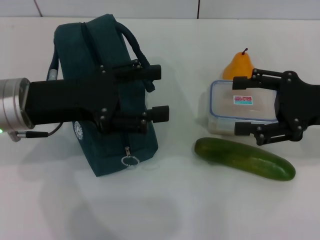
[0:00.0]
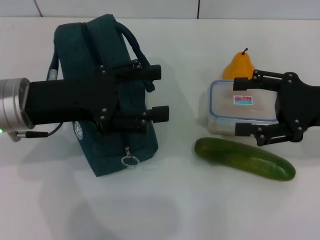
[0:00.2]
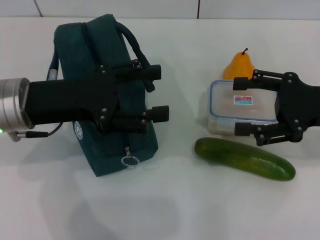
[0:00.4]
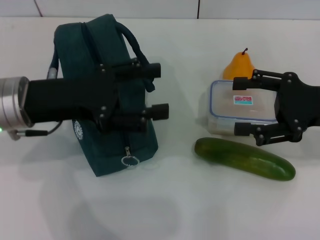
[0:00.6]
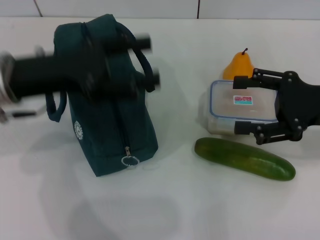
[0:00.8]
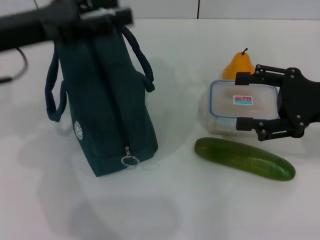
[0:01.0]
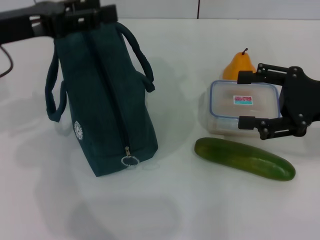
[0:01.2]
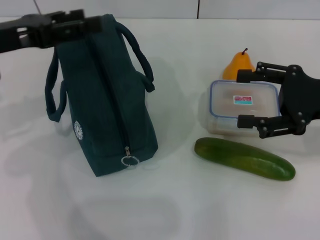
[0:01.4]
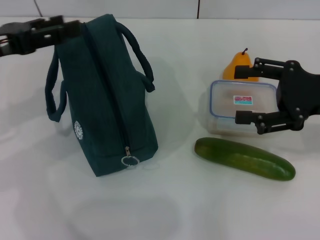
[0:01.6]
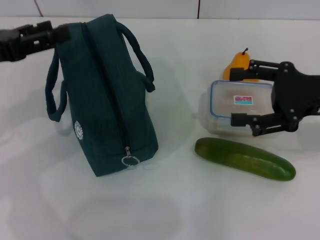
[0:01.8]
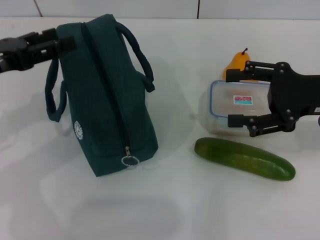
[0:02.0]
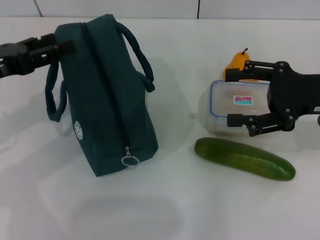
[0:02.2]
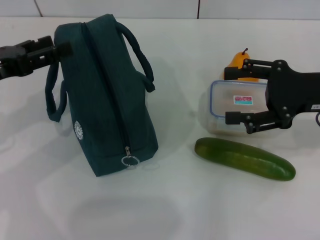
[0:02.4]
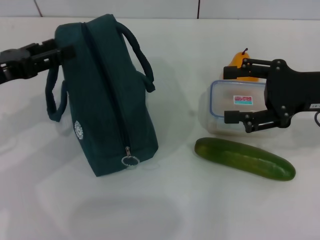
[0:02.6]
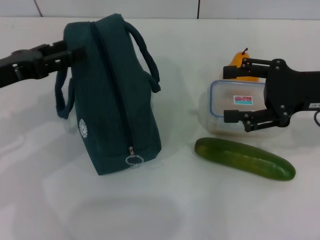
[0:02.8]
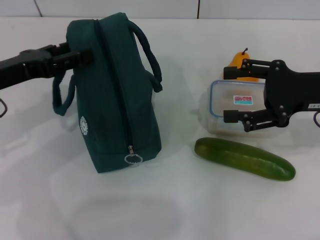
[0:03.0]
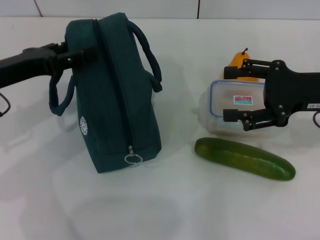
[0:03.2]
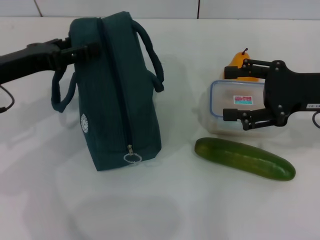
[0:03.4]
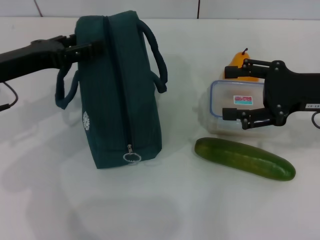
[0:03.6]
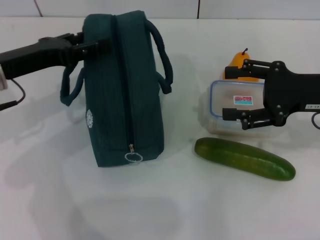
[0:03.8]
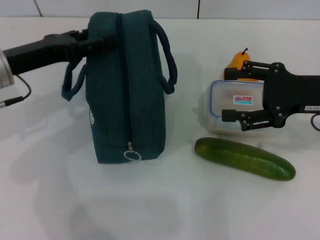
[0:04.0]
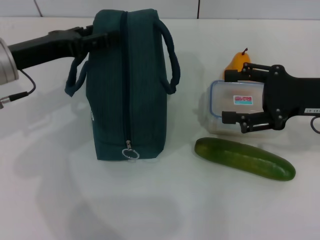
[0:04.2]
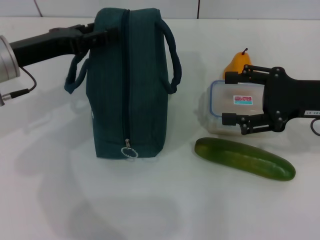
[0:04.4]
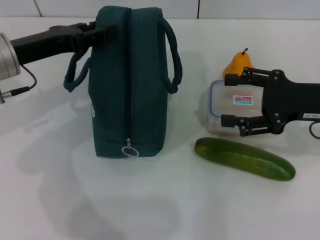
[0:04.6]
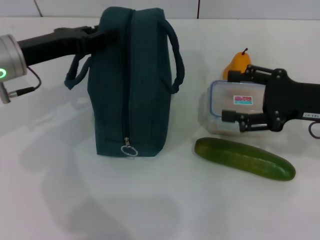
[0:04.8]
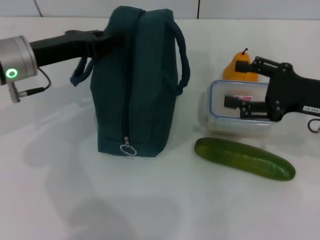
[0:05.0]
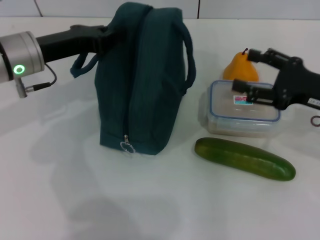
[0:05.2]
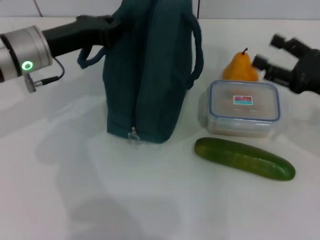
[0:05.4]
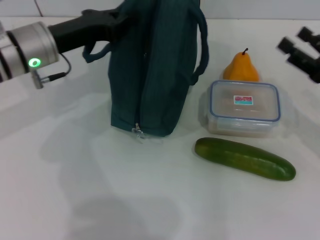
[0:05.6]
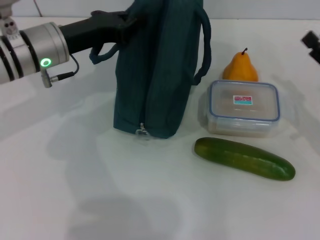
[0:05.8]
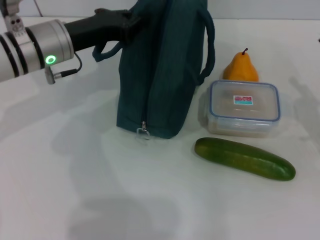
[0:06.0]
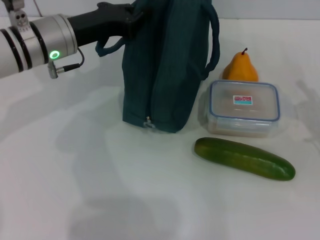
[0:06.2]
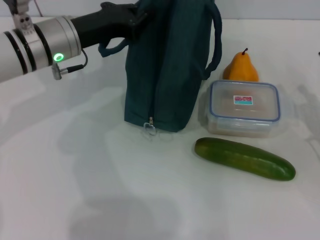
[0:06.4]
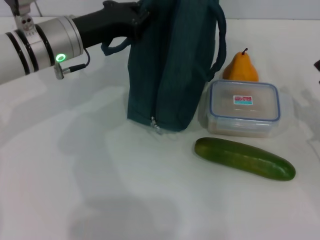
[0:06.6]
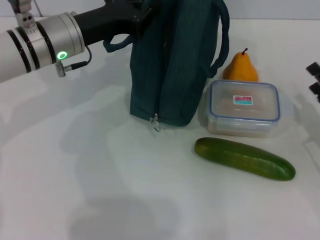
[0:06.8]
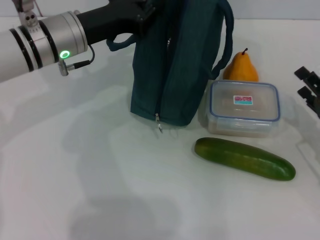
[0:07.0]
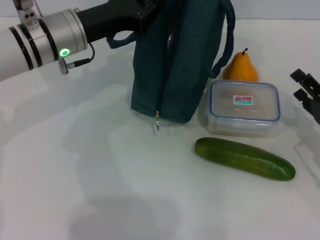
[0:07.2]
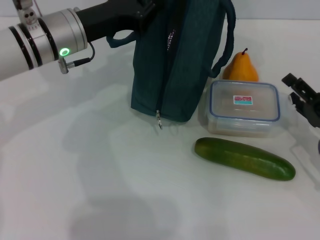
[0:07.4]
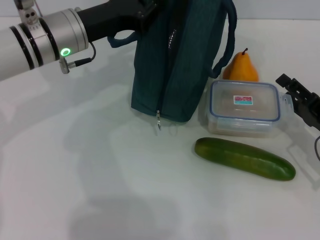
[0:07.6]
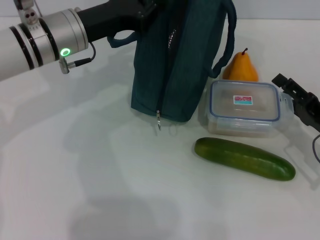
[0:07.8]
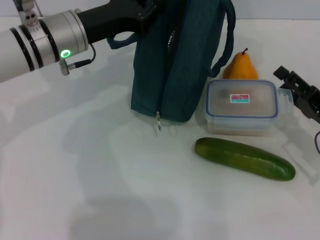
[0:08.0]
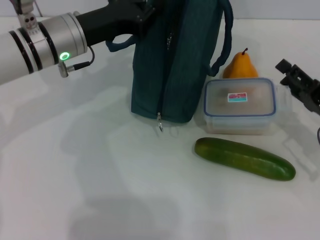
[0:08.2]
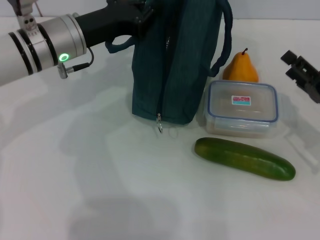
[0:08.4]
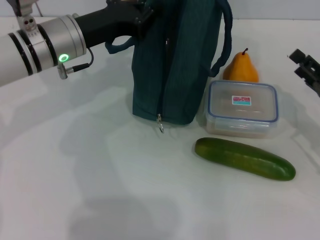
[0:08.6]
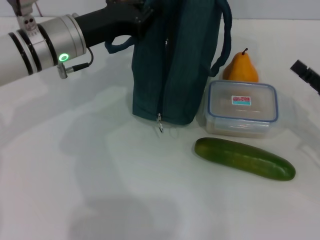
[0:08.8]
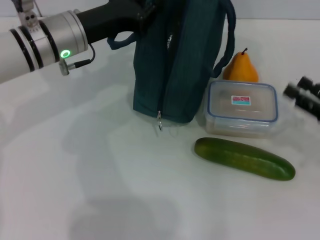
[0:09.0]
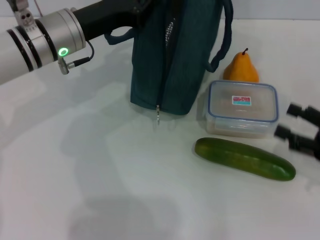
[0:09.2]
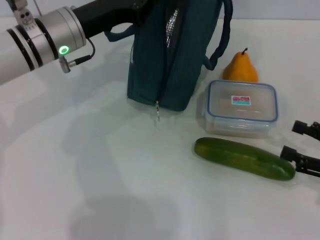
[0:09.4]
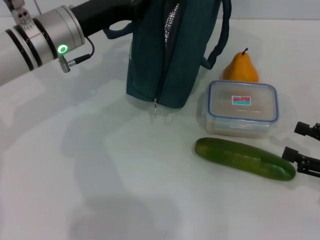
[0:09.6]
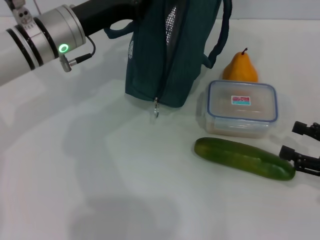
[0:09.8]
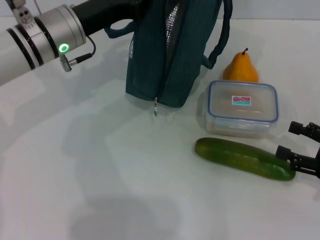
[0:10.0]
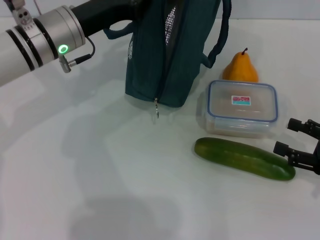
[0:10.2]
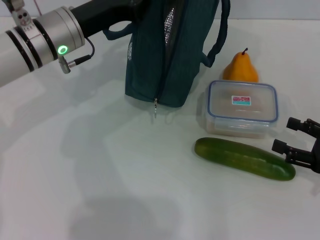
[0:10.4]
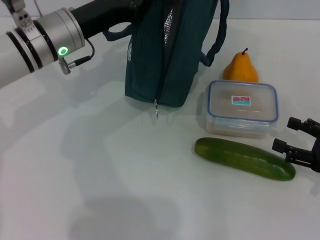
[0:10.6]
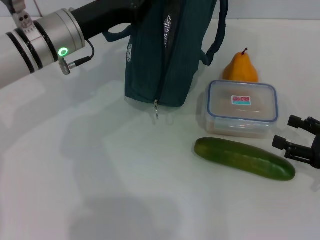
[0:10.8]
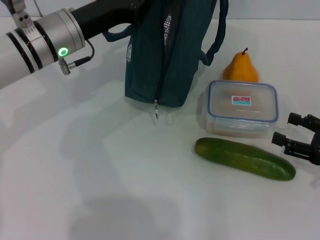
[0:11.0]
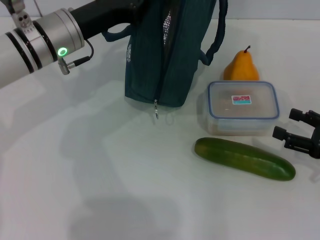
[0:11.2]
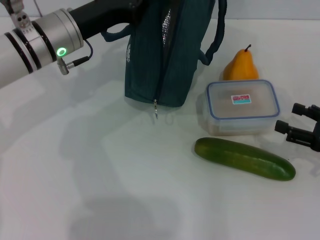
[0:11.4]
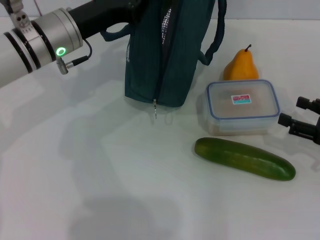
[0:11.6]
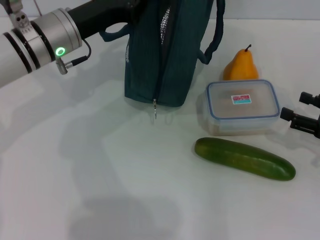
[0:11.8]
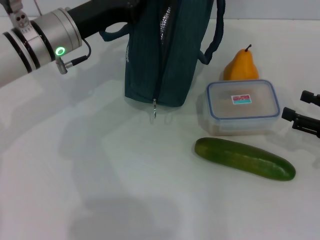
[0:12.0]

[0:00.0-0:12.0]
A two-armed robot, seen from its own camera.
Step, 0:00.0 to 0:07.0: Hold the lunch bag with your left hand.
0:00.0 to 0:01.6: The left gripper moves to the left, roughly 10 cm.
0:01.6 to 0:03.0: The grippers make only small movements.
0:03.0 to 0:04.4: The left gripper moves about 5 cm.
0:04.4 to 0:06.0: The right gripper shifts approximately 10 cm downward and to the right. The left gripper travels to the right by about 5 cm, and closes its fingers.
0:07.6 to 0:09.0: The right gripper moves about 5 cm.
0:10.4 to 0:12.0: The grippers stay close to where they were, moving slightly.

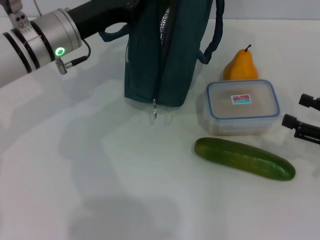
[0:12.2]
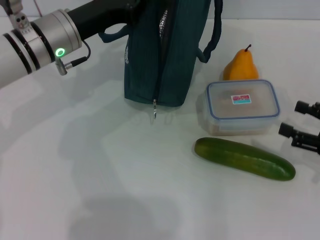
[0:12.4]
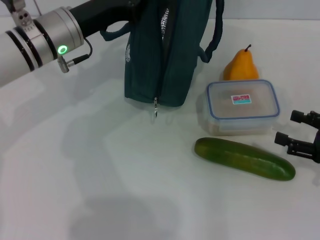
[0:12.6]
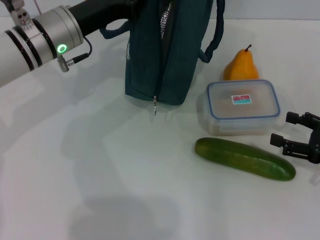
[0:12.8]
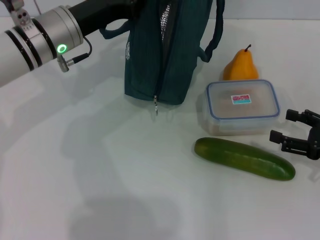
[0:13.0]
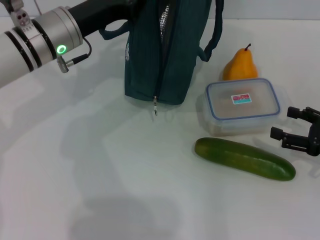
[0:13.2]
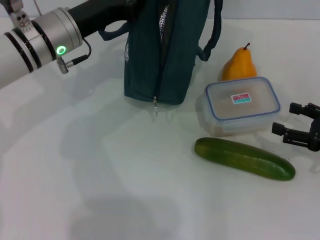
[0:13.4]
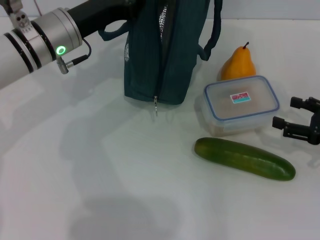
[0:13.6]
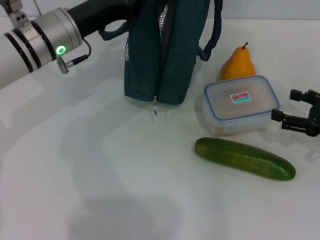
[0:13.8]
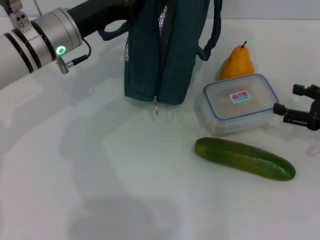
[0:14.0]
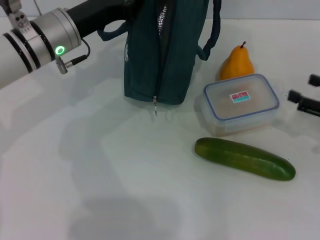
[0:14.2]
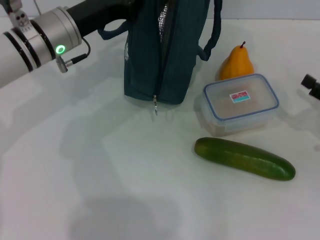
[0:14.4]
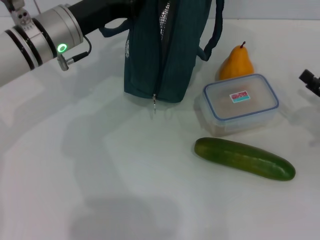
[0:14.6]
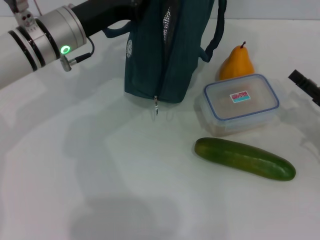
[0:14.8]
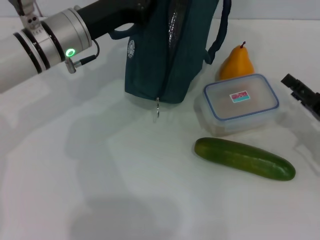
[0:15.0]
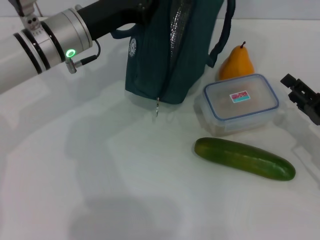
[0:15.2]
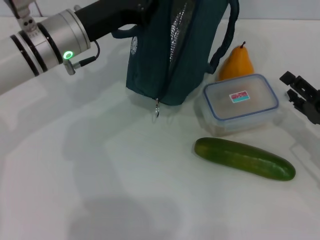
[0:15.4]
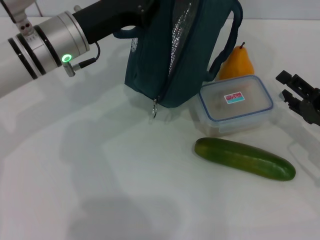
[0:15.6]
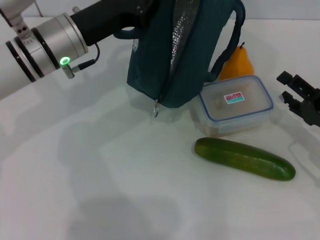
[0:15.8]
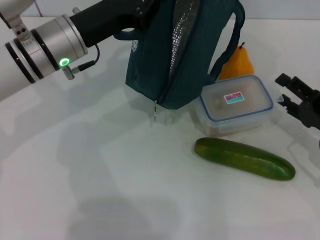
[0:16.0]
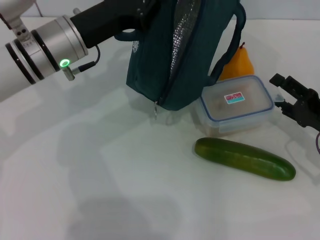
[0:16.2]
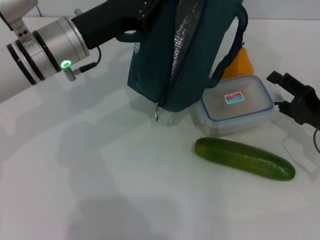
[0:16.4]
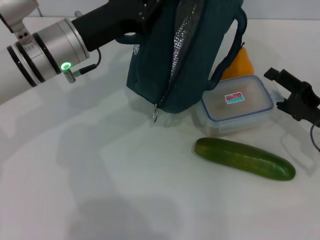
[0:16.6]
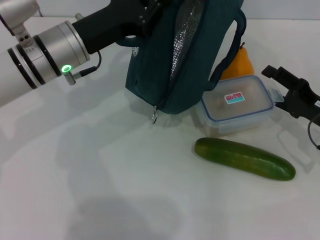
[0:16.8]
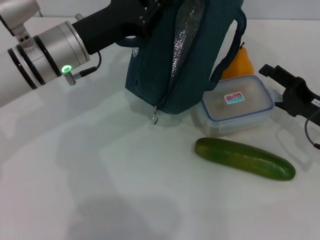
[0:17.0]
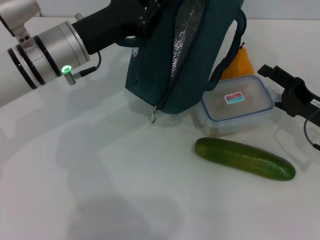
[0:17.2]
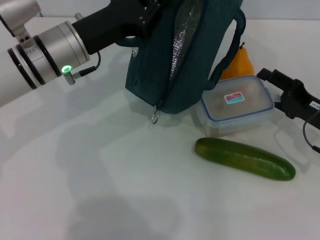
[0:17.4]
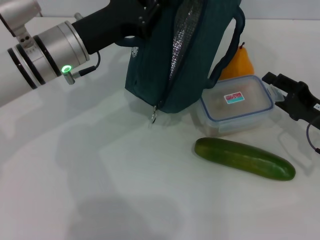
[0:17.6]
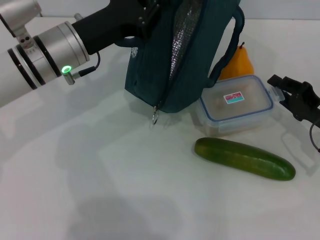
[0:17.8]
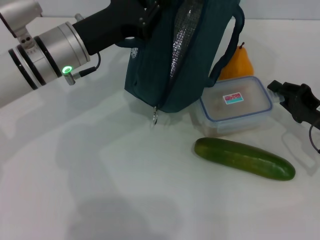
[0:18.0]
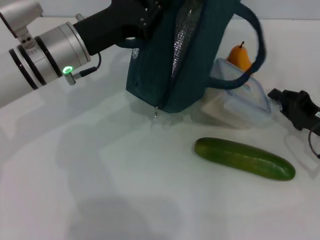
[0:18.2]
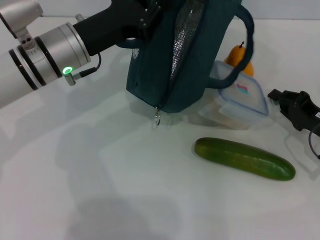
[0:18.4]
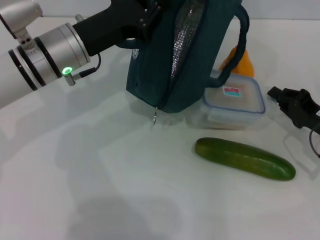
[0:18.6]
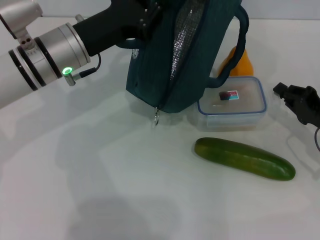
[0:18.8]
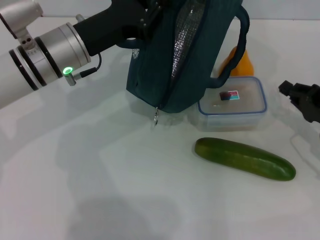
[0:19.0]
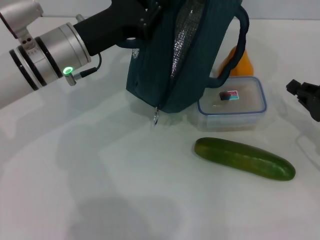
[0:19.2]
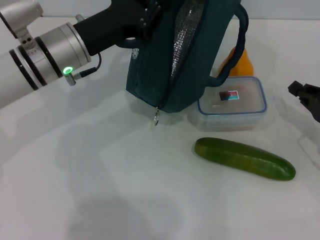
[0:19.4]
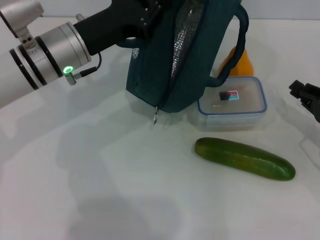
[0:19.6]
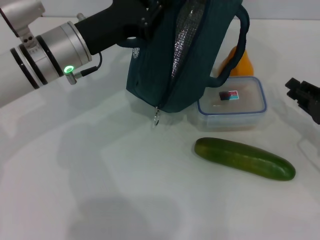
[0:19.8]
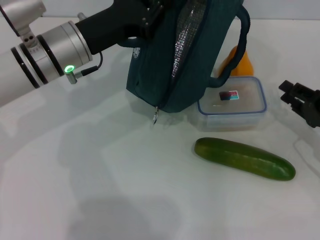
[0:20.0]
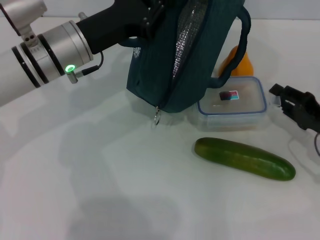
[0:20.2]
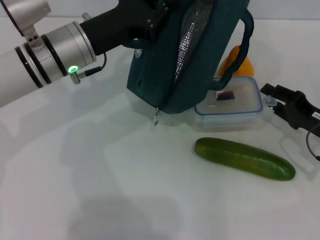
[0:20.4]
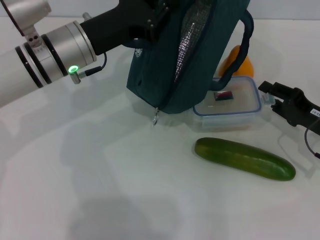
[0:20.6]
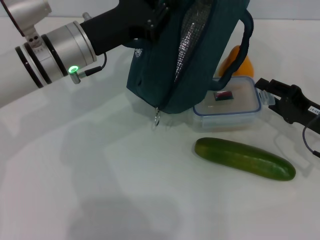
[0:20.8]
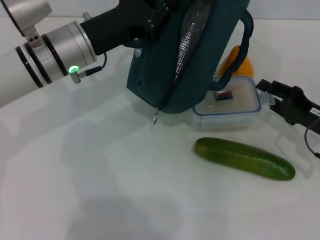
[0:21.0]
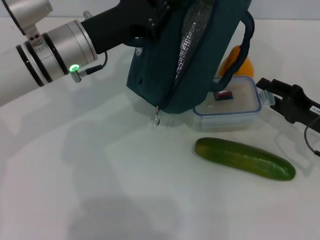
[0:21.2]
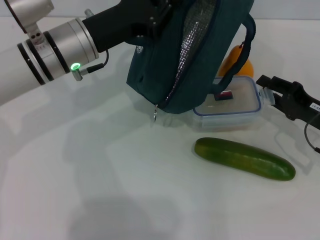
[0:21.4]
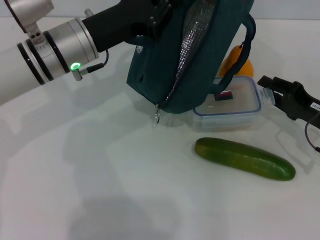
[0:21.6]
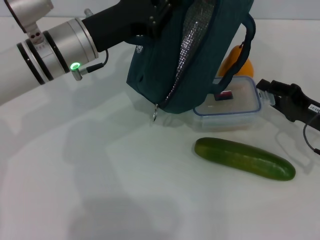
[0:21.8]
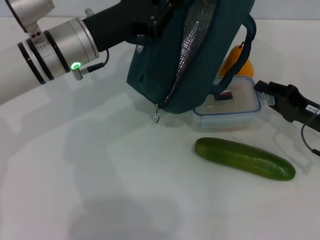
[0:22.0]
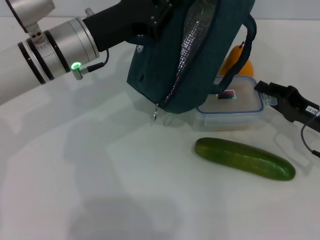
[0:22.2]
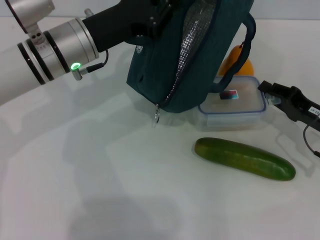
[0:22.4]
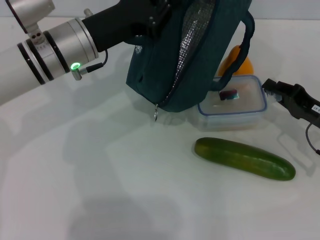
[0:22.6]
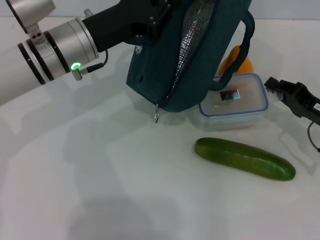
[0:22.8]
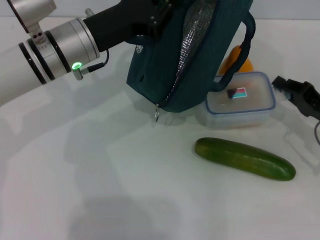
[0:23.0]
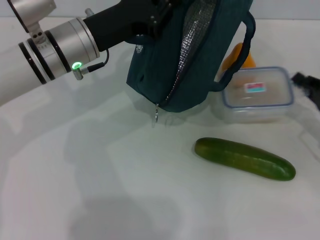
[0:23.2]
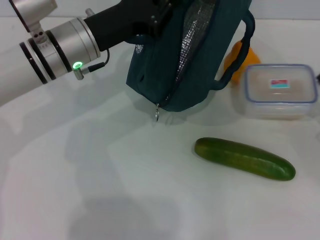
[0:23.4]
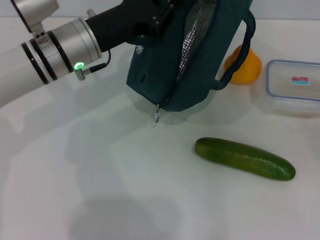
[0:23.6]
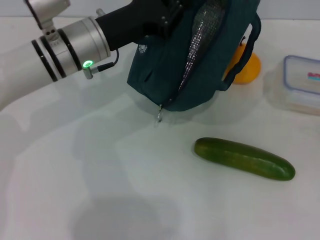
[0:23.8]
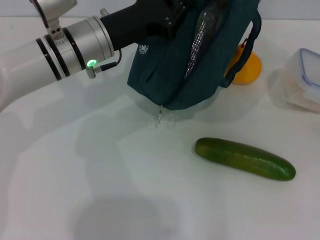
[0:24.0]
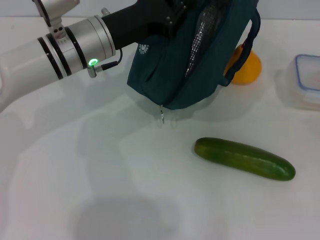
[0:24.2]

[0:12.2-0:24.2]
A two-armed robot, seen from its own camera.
0:12.2 to 0:13.8: The grippers move only a little.
0:13.8 to 0:15.2: The right gripper ends up about 5 cm from where it was.
0:15.2 to 0:16.6: There are only small adjustments of the grippers.
0:16.6 to 0:18.2: The right gripper closes its fingers.
0:18.2 to 0:22.6: There are only small adjustments of the grippers.
0:22.6 to 0:24.2: The right gripper shifts about 10 cm to the right.
